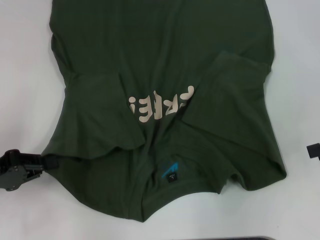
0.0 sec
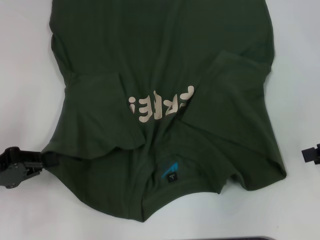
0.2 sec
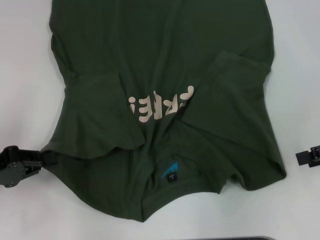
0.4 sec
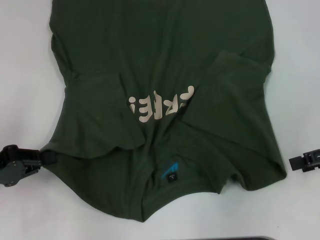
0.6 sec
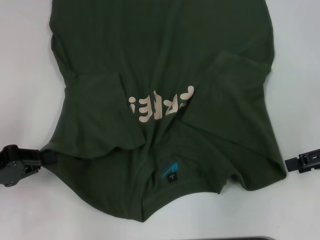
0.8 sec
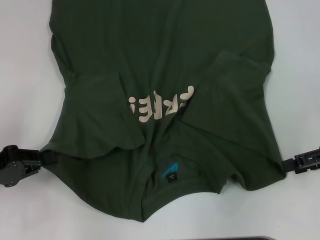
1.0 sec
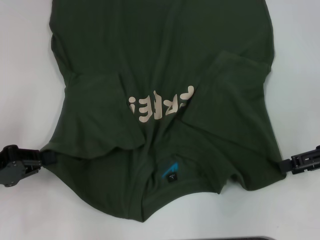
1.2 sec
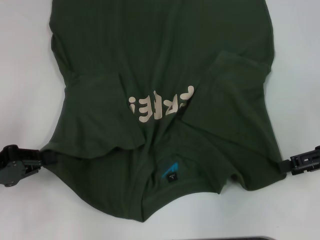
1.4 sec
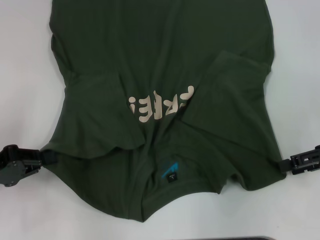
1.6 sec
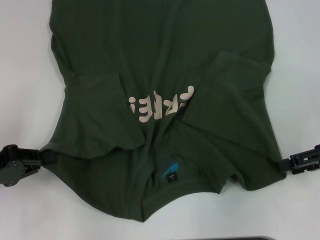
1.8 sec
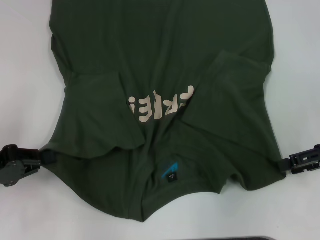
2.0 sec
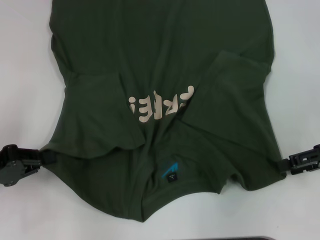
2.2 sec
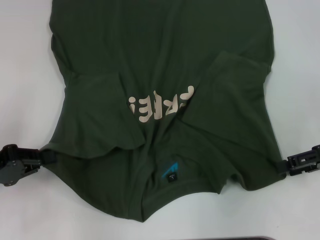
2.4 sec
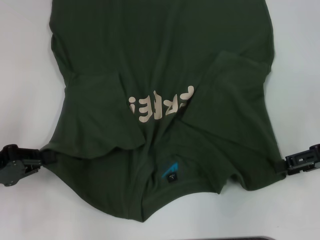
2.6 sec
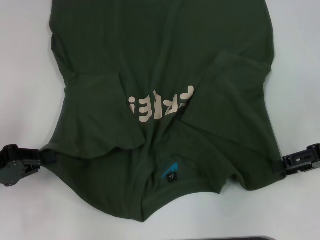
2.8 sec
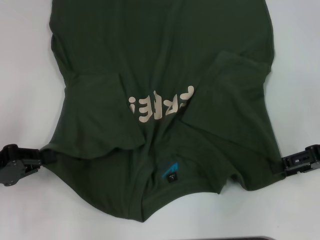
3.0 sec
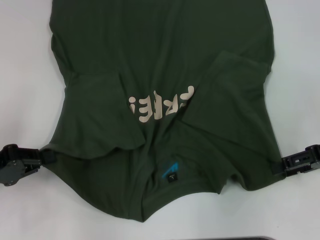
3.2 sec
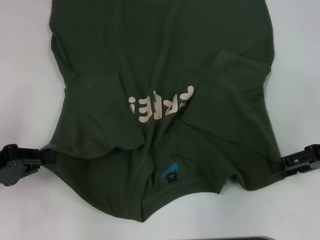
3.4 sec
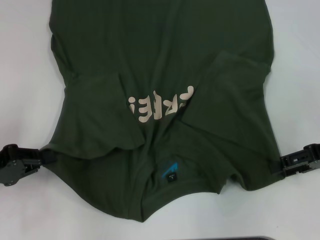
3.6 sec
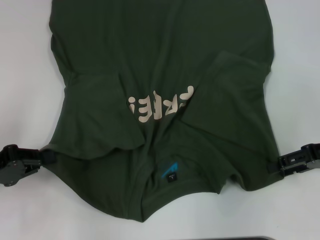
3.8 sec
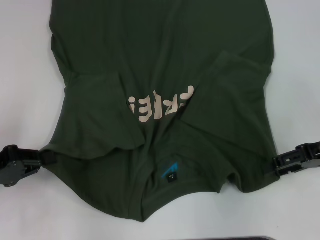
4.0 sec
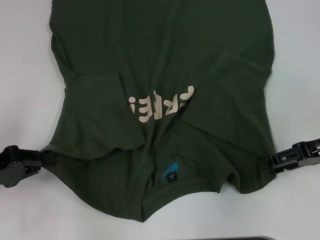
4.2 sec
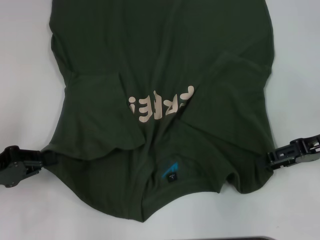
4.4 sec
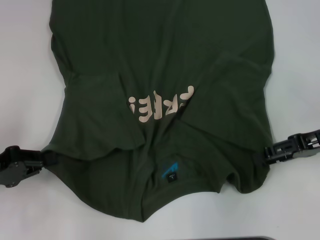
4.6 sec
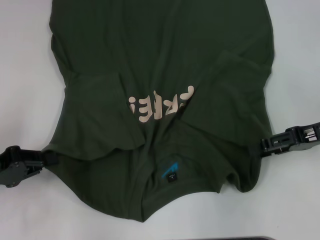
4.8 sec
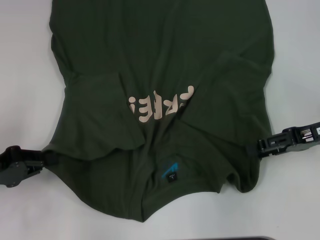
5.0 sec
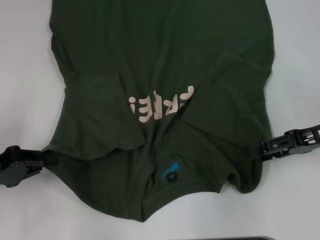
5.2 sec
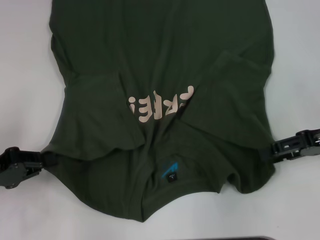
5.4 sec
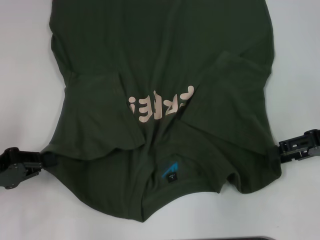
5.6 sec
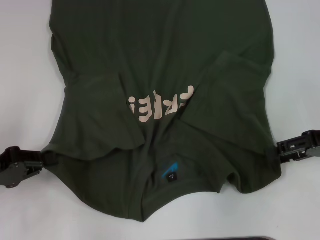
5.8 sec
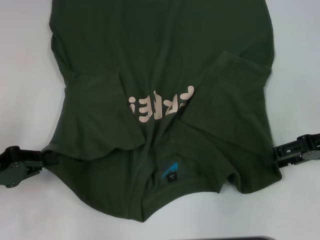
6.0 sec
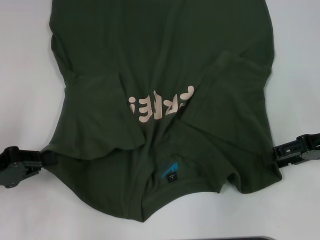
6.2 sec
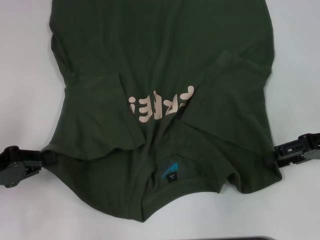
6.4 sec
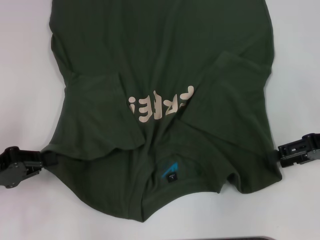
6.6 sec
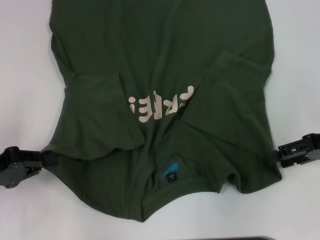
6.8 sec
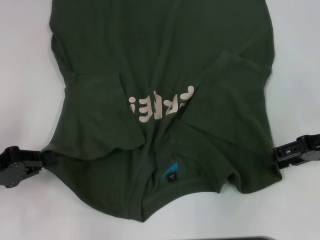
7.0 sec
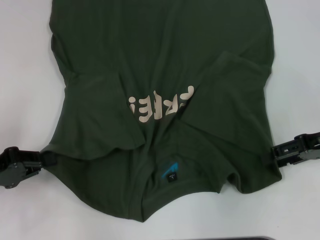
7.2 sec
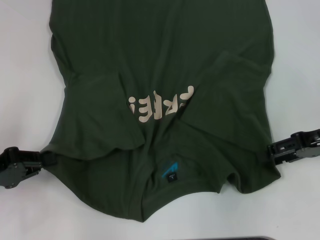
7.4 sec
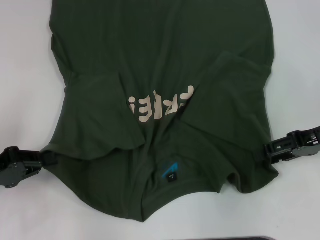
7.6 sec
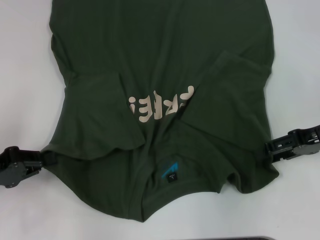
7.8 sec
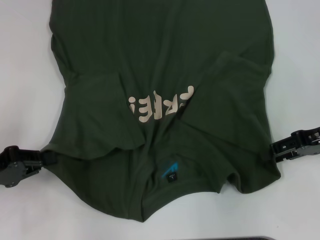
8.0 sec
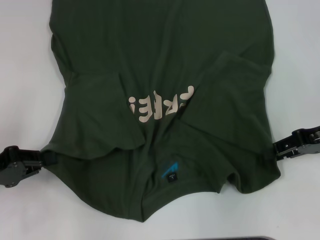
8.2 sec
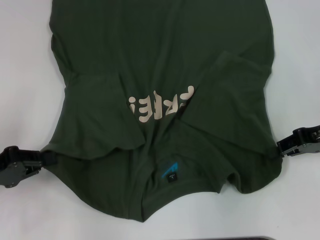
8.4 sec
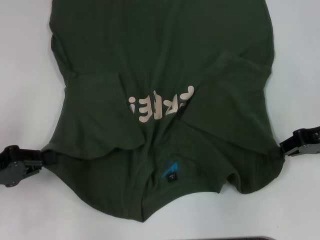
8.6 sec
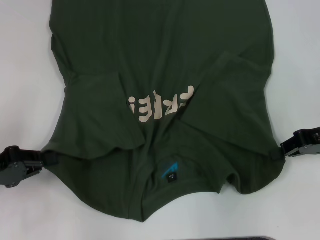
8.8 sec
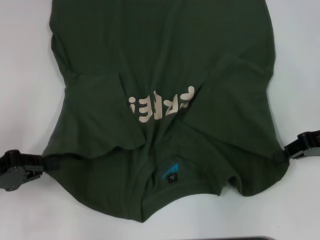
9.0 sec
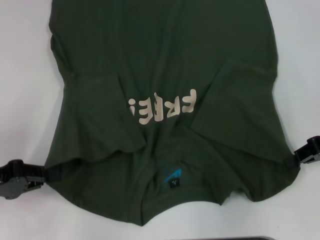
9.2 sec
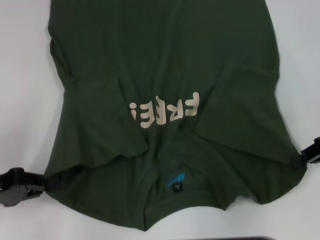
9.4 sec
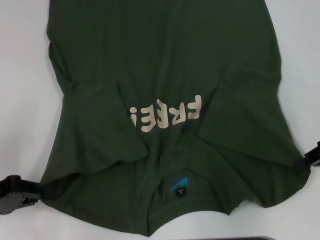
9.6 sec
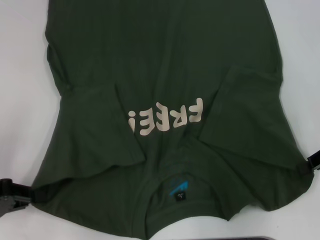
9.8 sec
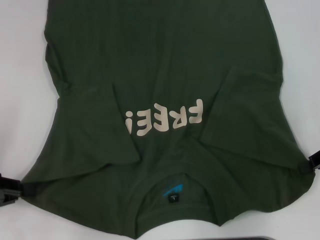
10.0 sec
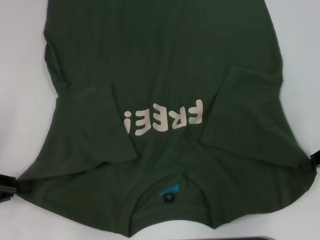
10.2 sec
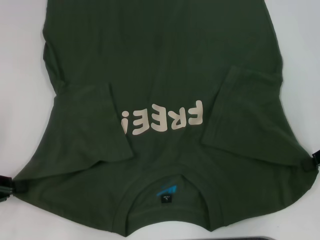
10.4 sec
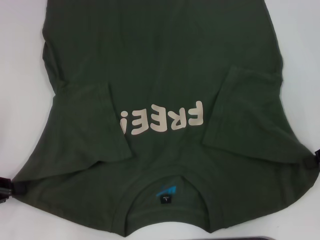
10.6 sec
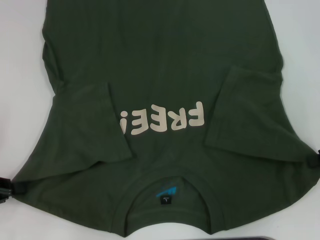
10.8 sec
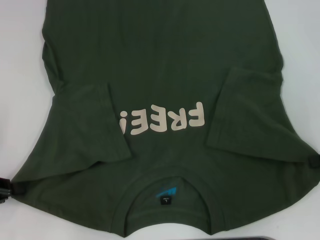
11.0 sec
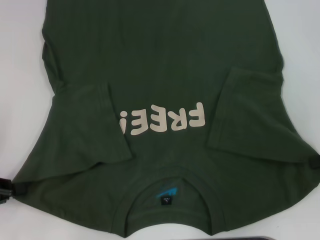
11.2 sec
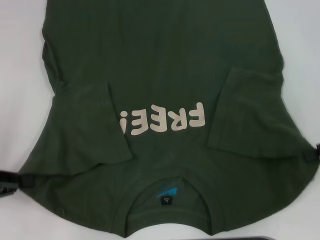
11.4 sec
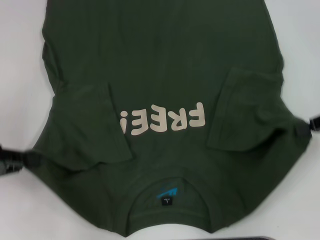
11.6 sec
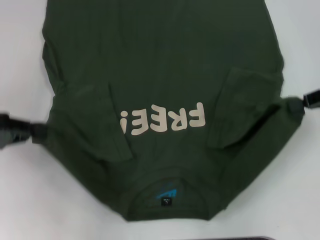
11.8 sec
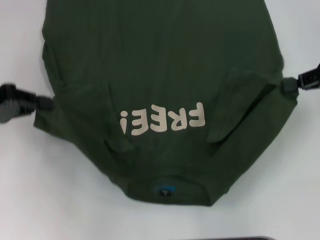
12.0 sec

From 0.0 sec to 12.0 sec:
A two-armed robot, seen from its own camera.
Step, from 0.0 sec to 8.8 sec: Grab the bottom right corner with your right hand.
From 0.0 sec to 1.6 sec: The right gripper changes place by roughly 5 cm.
From 1.6 sec to 3.0 sec: Both grippers stay put.
From 3.0 sec to 7.6 sec: The grippers move only a little.
From 7.6 sec to 9.0 sec: The right gripper closes up.
From 10.4 sec to 12.0 sec: The right gripper travels upward by approximately 5 cm. The left gripper travels forward and upward by about 10 cm.

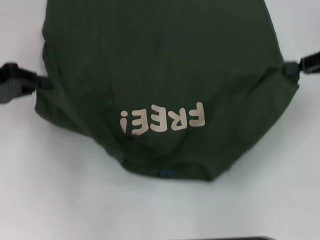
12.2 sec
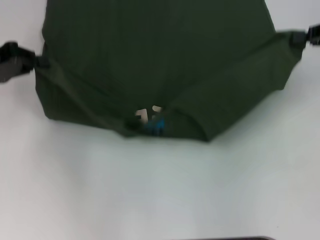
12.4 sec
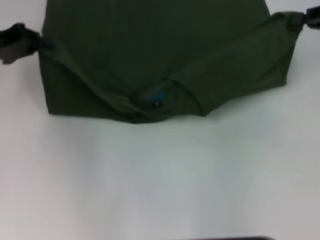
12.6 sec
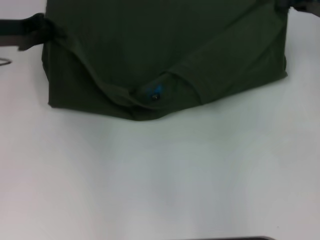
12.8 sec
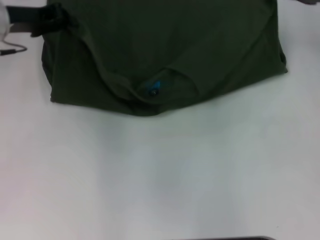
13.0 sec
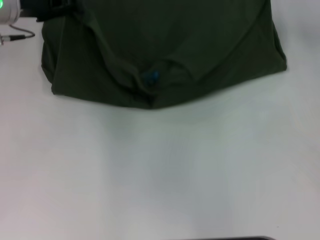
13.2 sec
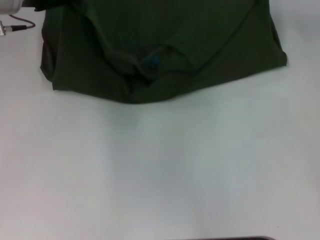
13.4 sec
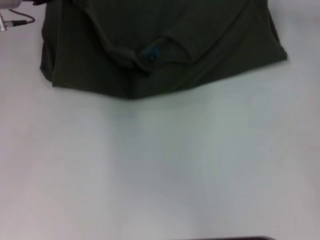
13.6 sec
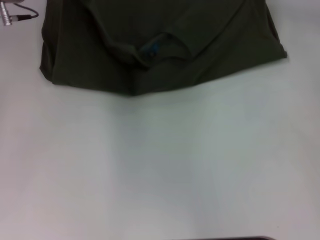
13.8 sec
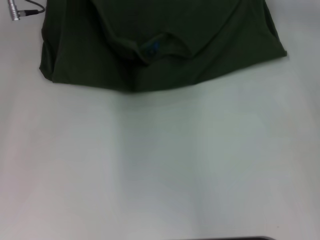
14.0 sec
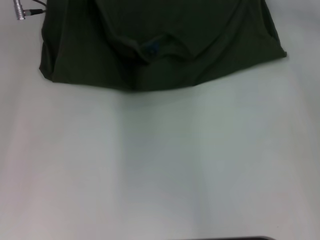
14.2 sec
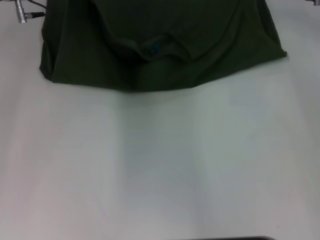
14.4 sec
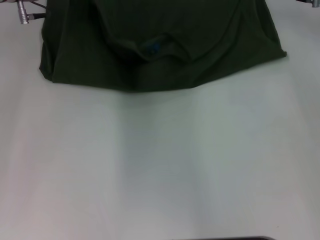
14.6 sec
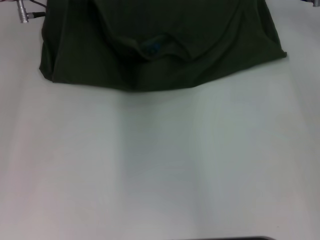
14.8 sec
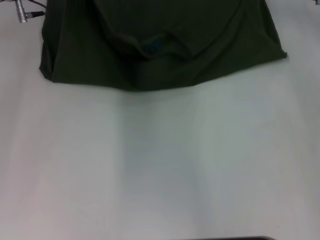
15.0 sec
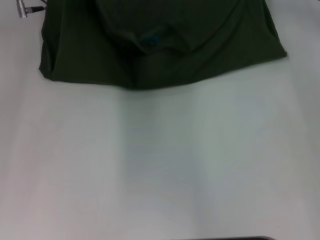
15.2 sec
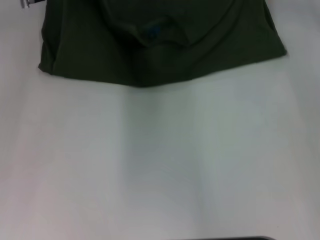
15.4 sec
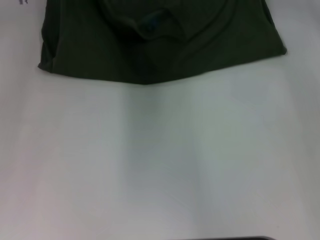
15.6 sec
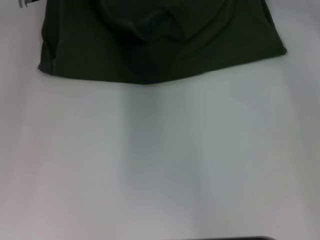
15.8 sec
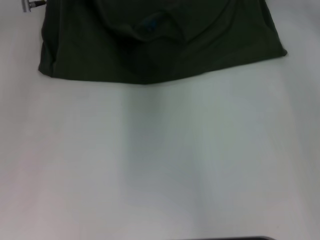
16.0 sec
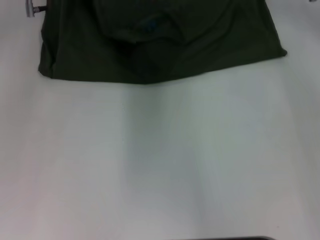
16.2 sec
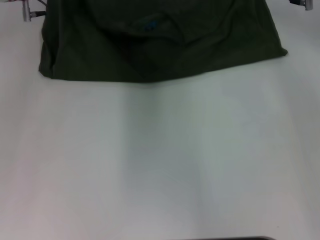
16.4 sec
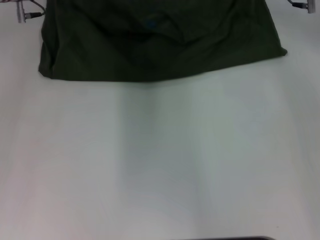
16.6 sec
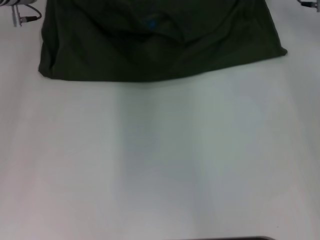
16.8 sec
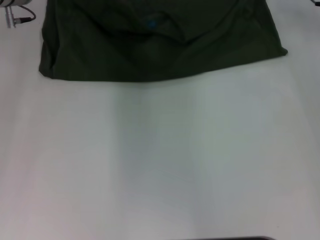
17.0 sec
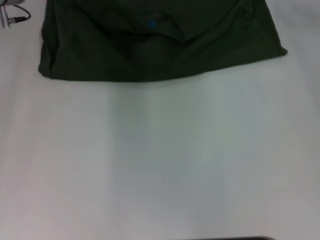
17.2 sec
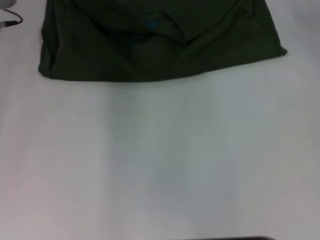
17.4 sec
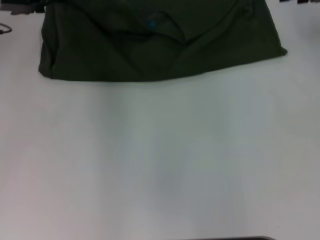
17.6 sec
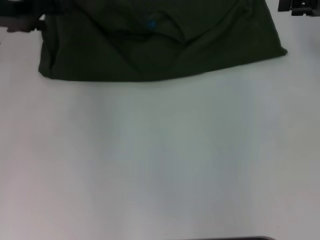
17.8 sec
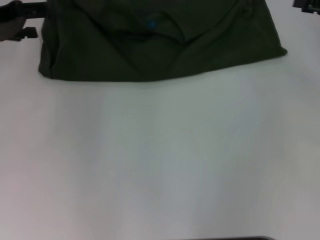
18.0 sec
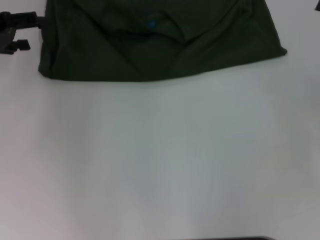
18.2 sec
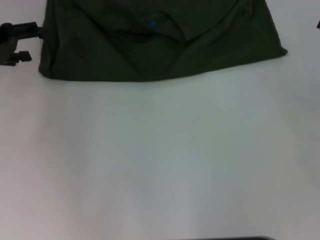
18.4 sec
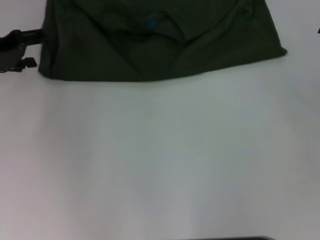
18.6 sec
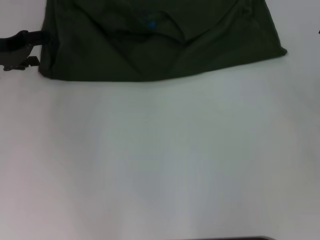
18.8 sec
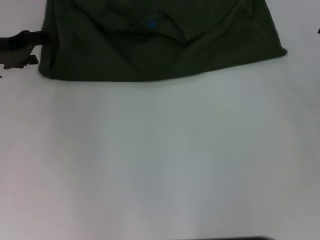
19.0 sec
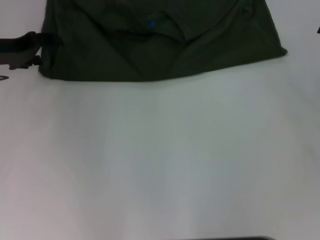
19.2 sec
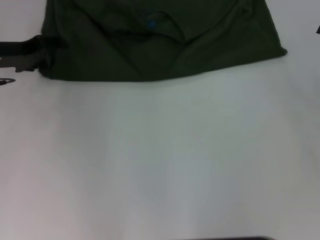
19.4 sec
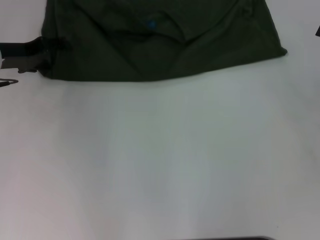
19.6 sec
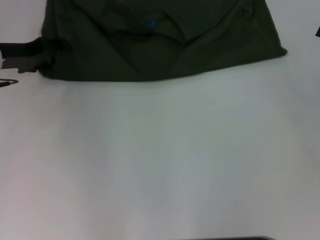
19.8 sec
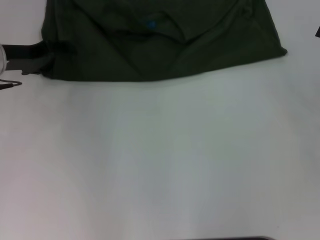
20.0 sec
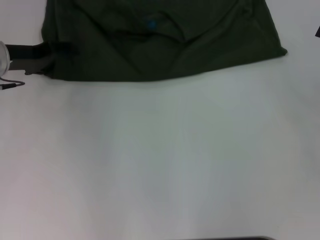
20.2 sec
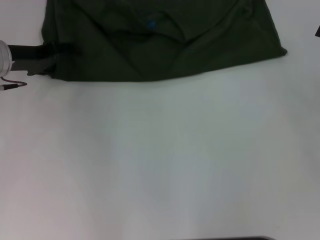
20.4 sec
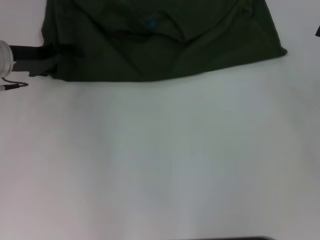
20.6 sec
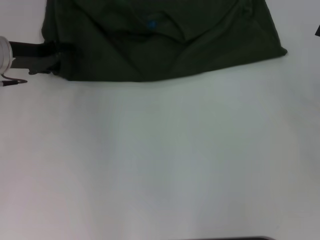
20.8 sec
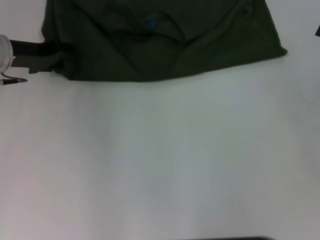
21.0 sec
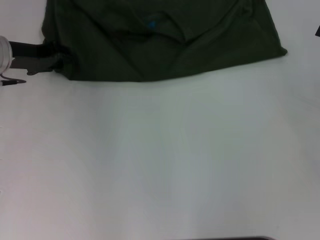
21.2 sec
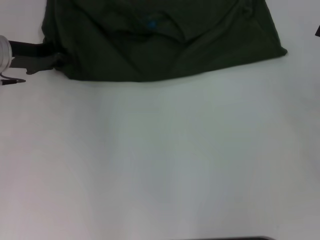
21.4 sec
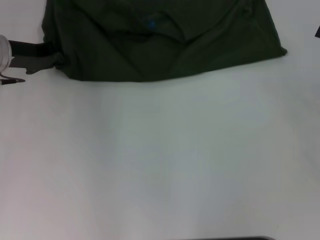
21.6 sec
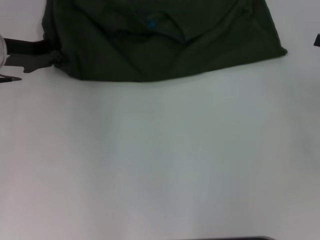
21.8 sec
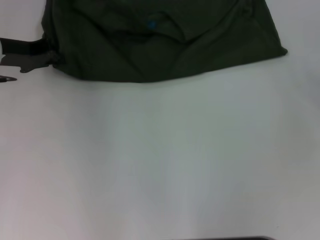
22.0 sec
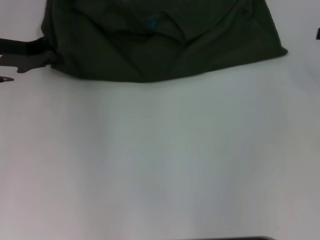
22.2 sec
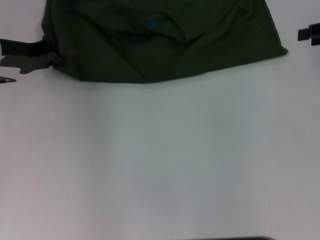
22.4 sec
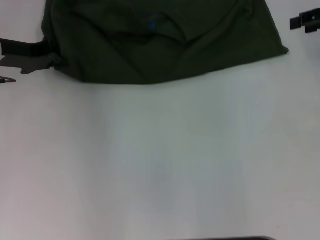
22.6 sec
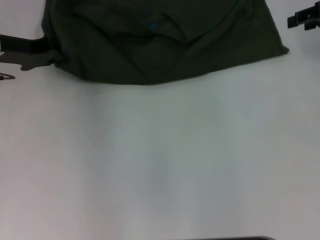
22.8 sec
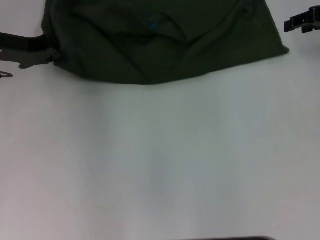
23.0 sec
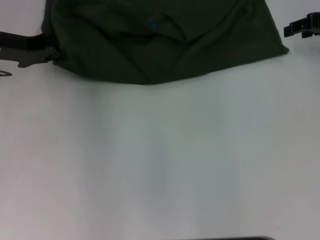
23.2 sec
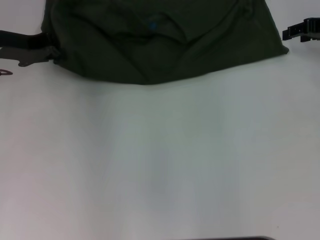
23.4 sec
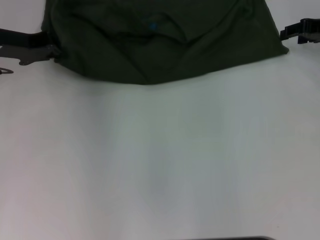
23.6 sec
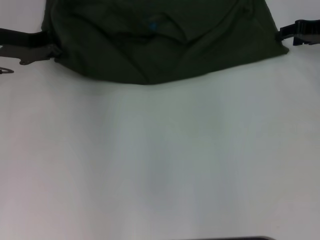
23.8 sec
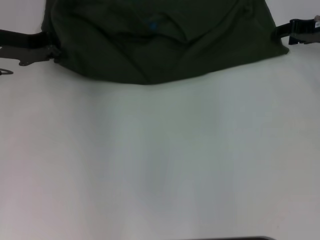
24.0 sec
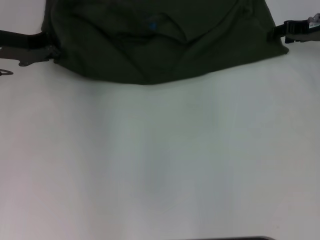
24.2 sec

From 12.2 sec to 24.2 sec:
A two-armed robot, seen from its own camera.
Step, from 12.2 sec to 17.0 sec: Fold the clothes with your left hand.
Step, from 12.2 sec to 17.0 sec: Fold the clothes with your right hand.
From 12.2 sec to 13.8 sec: The left gripper travels forward and to the right by approximately 15 cm. Meanwhile the right gripper heads forward and to the left, covering some 15 cm.
From 13.8 sec to 15.2 sec: The grippers make only small movements.
From 15.2 sec to 16.6 sec: The grippers stay close to where they were, moving slightly.
From 16.6 sec to 18.2 sec: The left gripper goes roughly 15 cm to the left and backward, and opens up; the right gripper shifts about 25 cm to the right and backward, and opens its fingers.
From 18.2 sec to 19.8 sec: The left gripper travels downward by roughly 5 cm.
From 19.8 sec to 21.2 sec: The left gripper closes up.
From 21.2 sec to 22.6 sec: The right gripper moves forward and upward, roughly 15 cm; the left gripper closes.
From 22.6 sec to 24.2 sec: The right gripper travels downward by approximately 5 cm.
